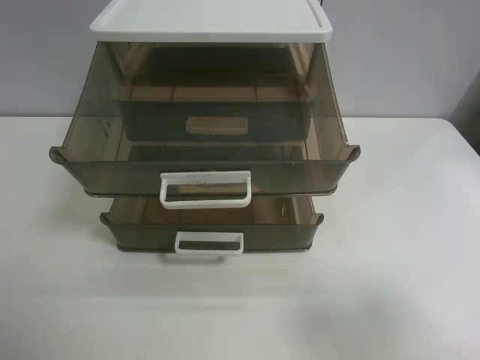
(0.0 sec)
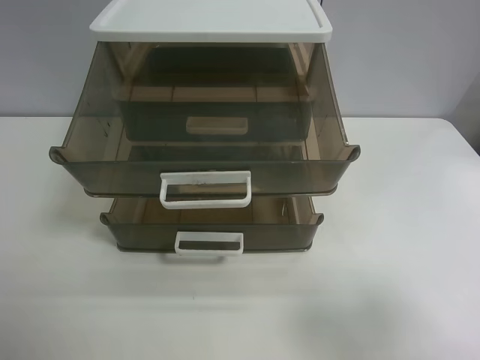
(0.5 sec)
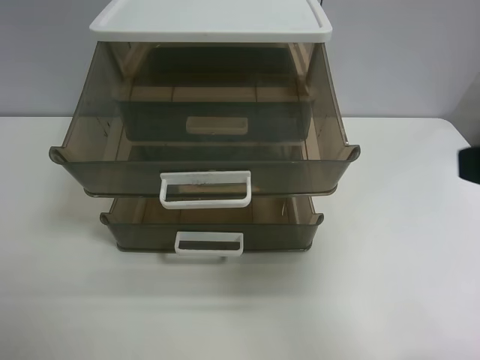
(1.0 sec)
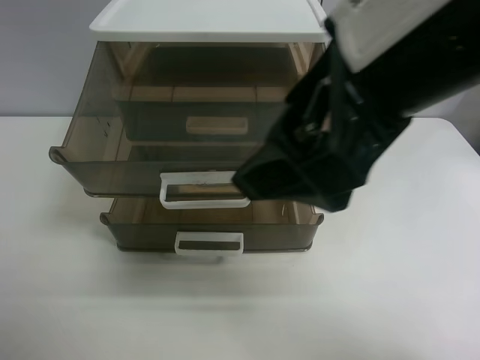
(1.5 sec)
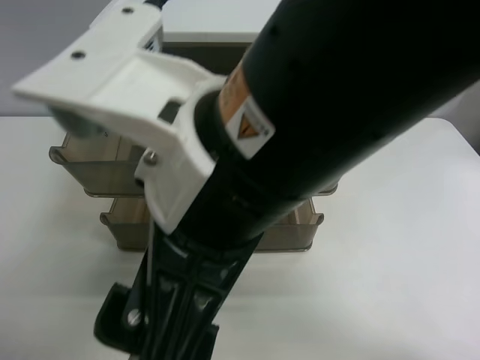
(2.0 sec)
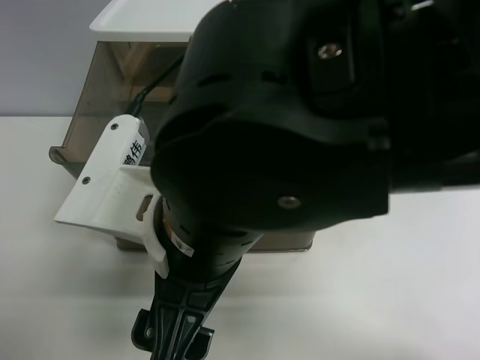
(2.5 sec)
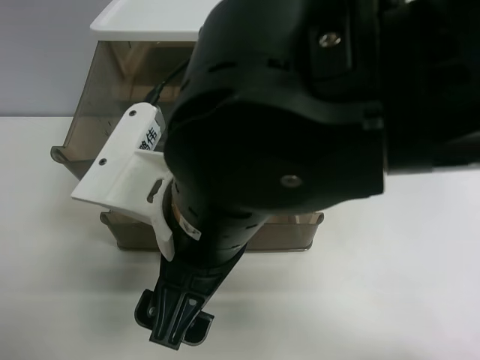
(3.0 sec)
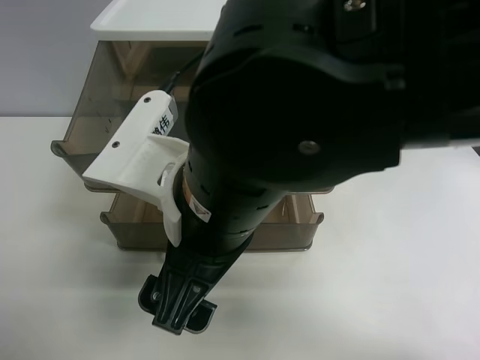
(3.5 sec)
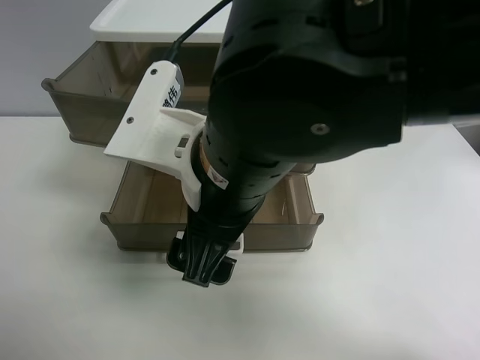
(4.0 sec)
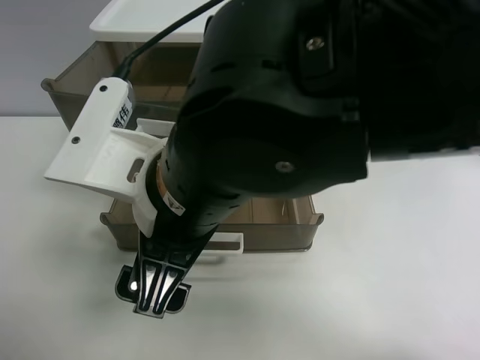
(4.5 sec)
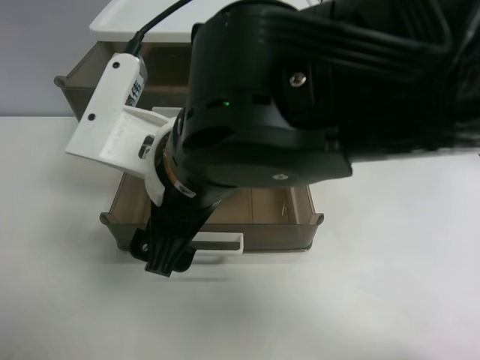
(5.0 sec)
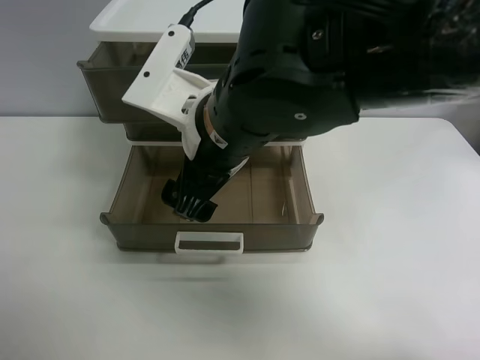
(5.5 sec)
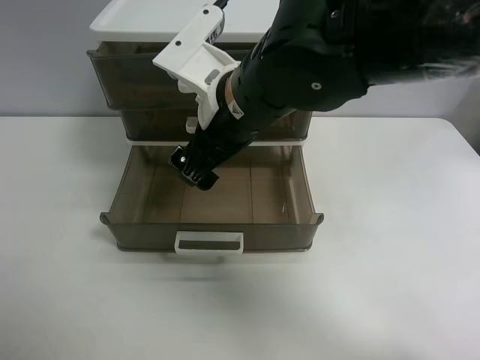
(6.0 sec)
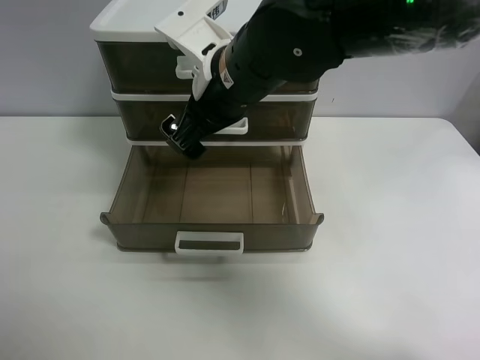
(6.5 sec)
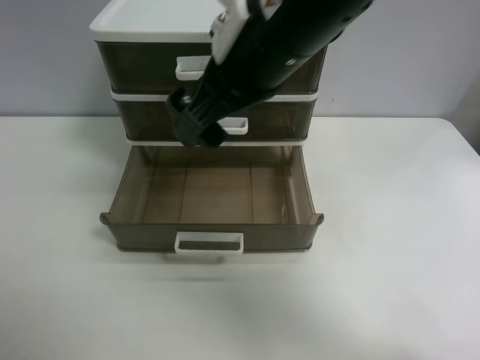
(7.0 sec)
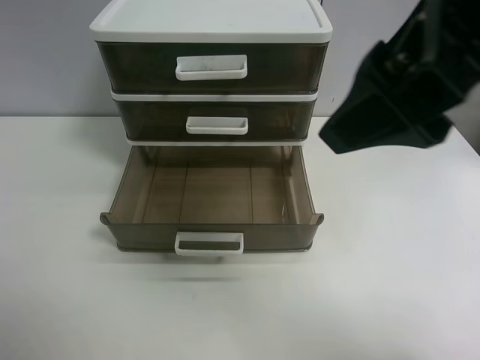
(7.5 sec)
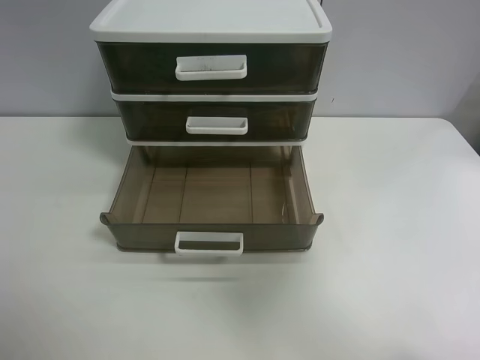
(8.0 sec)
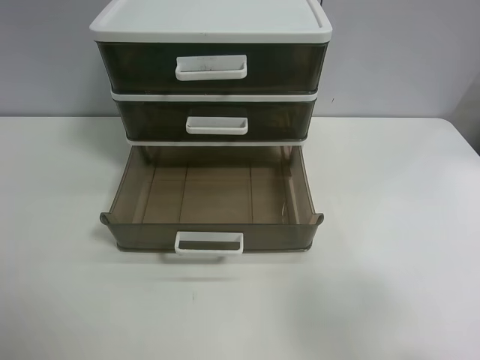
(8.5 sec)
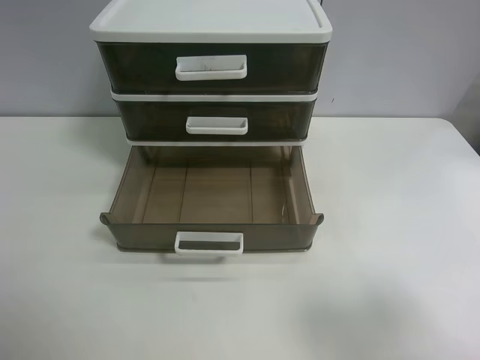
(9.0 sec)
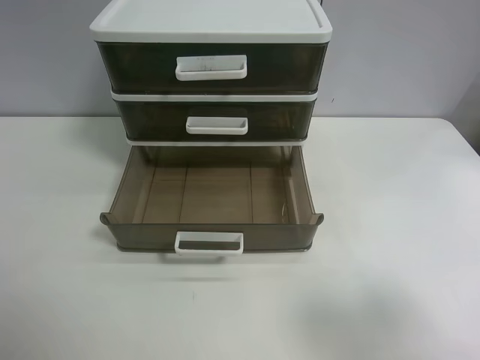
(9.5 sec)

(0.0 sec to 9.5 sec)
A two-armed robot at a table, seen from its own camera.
Task of the whole recording: close the top drawer.
Step, 0.0 sec - 3.0 sec: Use the right gripper to touch the topmost layer of the storage cabinet.
Step, 3.5 sec - 6.5 sec: Push the top drawer closed.
0.0 sec - 2.0 sec: The right gripper is displaced to the left by about 30 cm.
2.0 sec - 4.0 sec: The right gripper goes some 5 cm forward.
4.0 sec - 5.5 sec: The right gripper travels forward by roughly 5 cm.
5.5 sec - 7.5 sec: The right gripper goes approximately 20 cm upward, to the right and backward.
7.5 sec - 9.5 sec: The right gripper is displaced to the right, backward and downward by roughly 25 cm.
